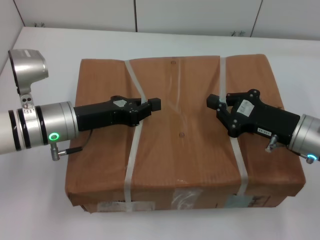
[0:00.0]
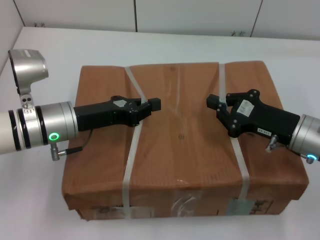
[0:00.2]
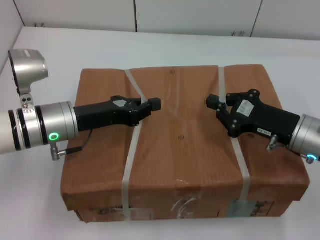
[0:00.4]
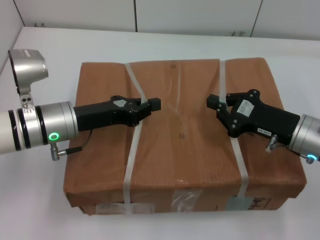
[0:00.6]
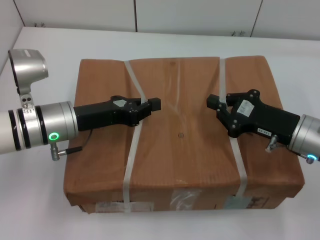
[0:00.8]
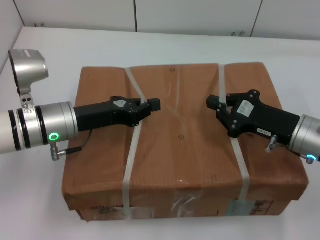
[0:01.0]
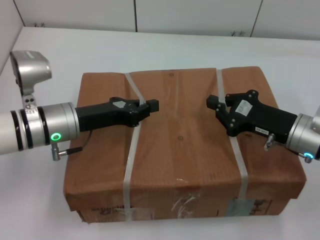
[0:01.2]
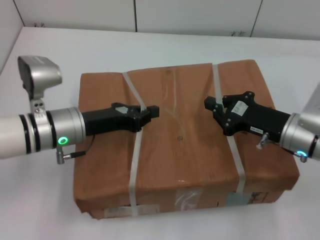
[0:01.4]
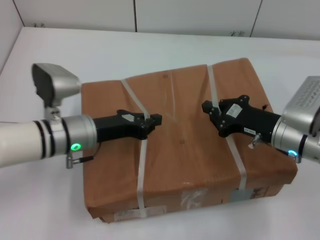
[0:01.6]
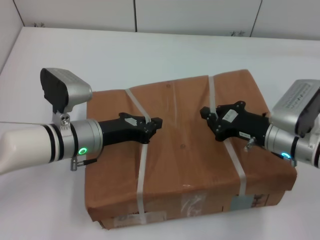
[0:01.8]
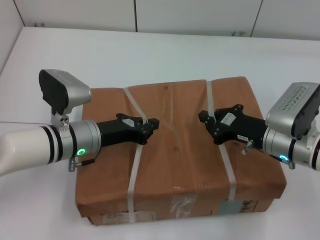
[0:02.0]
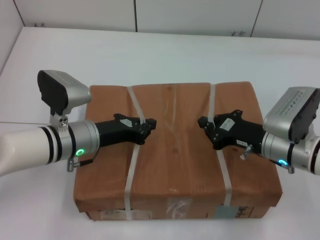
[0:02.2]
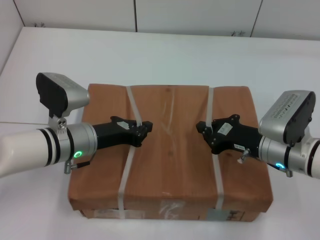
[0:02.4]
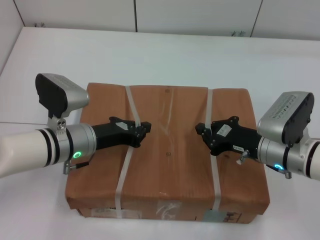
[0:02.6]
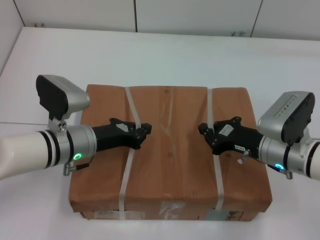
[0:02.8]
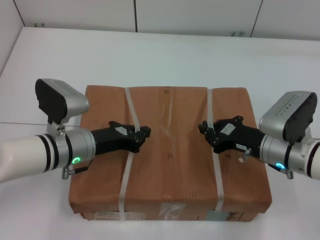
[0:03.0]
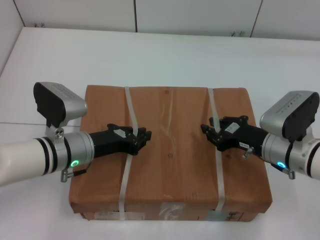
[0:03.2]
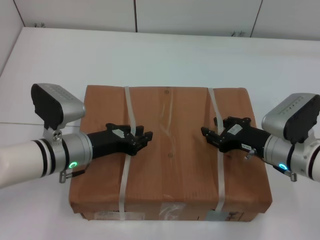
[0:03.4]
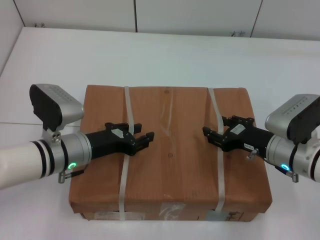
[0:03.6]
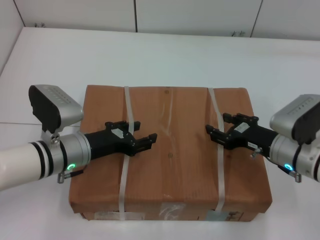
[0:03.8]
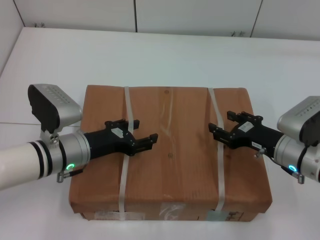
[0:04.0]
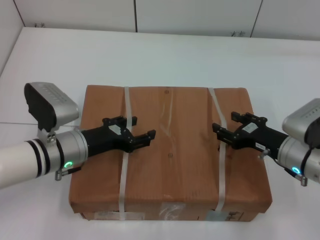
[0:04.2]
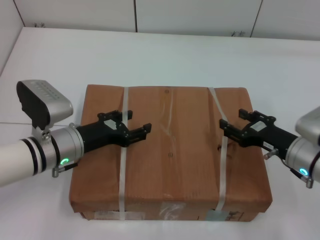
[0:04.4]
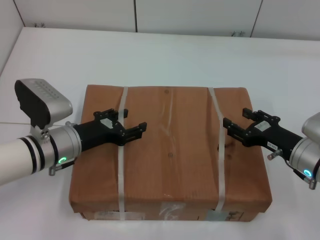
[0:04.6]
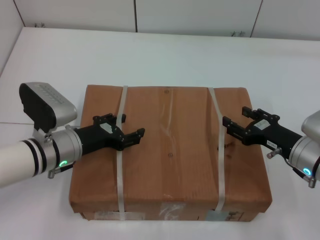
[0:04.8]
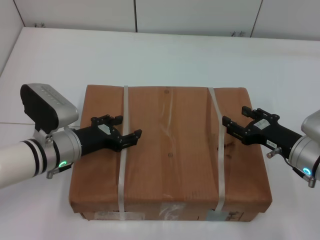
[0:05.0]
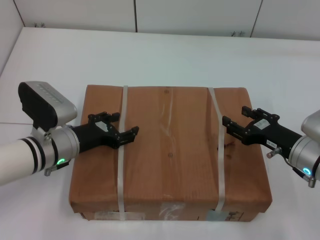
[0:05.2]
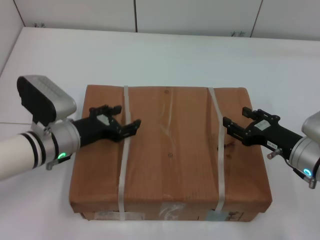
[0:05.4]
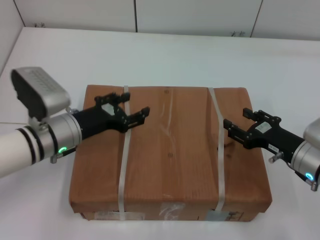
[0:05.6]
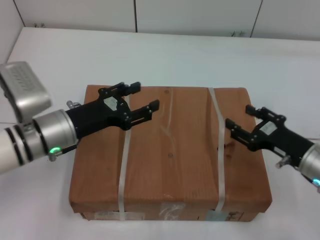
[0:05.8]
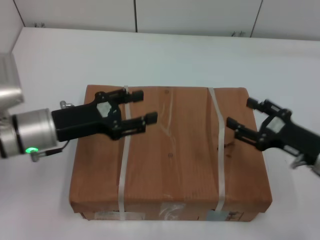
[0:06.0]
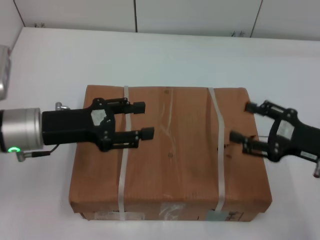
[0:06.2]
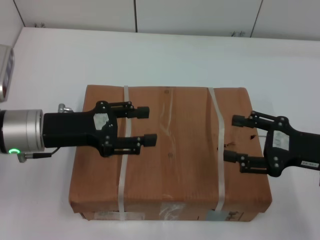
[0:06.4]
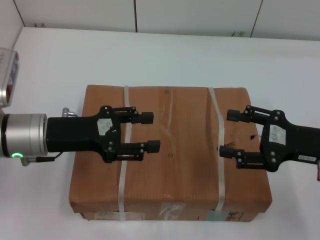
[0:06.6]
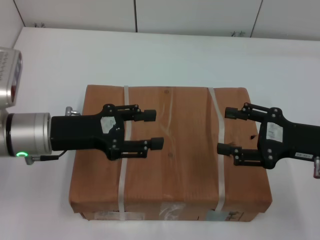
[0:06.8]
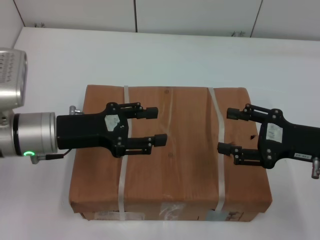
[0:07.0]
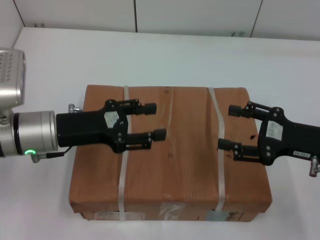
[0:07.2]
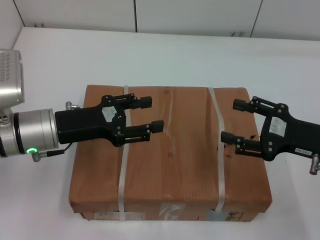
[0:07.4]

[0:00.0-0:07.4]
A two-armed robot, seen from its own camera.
Task of the whole recording: place the box on the table with both arms.
Step, 0:00.0 to 0:02.8: Place the box on the table with left gripper.
Step, 0:00.0 to 0:02.8: Place the box on the table with right gripper.
Step, 0:03.0 to 0:05.0: Loosen the box on the table with left gripper.
Step, 0:03.0 to 0:05.0: Loosen the box on the table with right gripper.
0:00.0 to 0:01.4: There are only small adjustments of the grippers.
0:03.0 to 0:04.4: The right gripper opens its fingers. The left gripper opens up.
0:04.4 to 0:06.0: The left gripper shifts some 5 cm upward.
